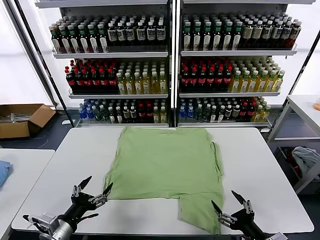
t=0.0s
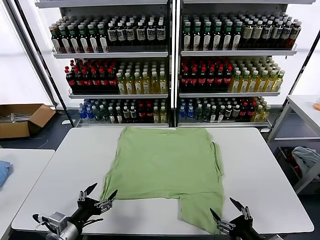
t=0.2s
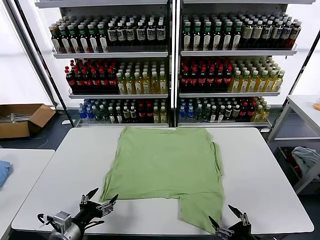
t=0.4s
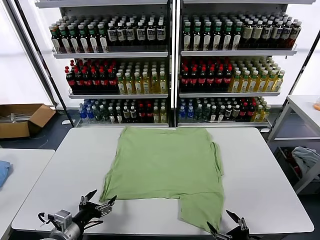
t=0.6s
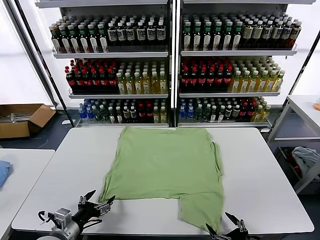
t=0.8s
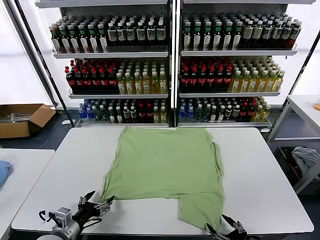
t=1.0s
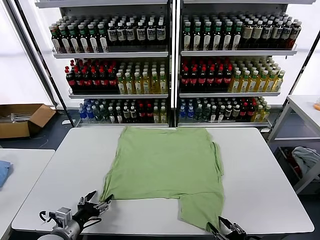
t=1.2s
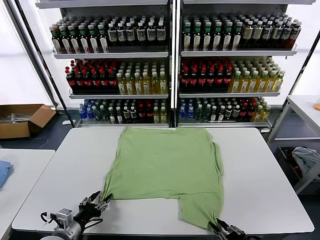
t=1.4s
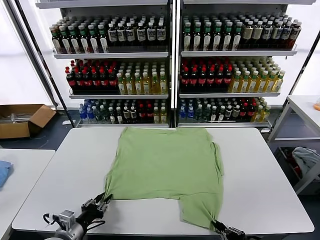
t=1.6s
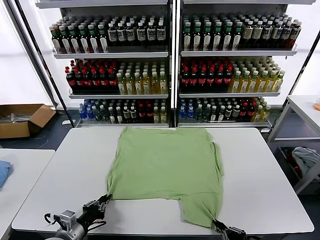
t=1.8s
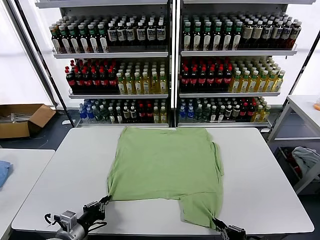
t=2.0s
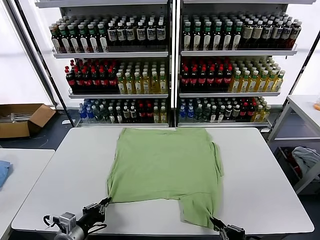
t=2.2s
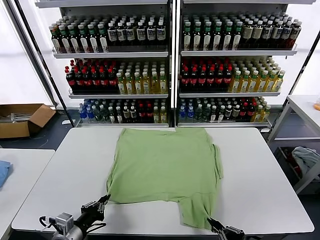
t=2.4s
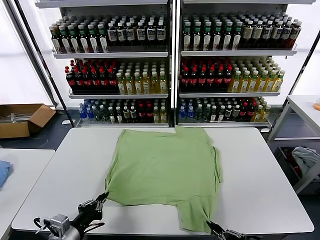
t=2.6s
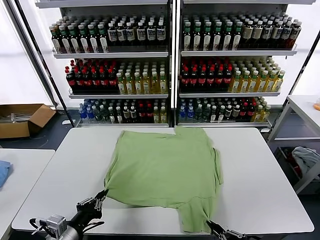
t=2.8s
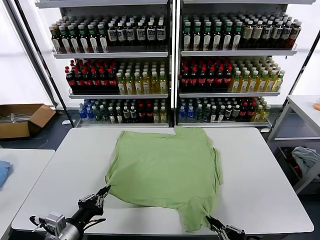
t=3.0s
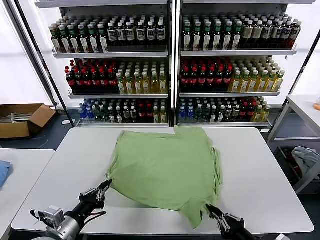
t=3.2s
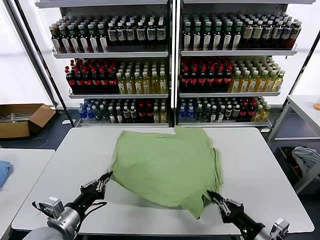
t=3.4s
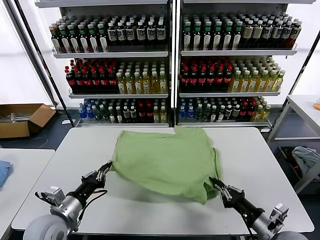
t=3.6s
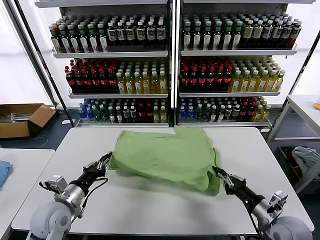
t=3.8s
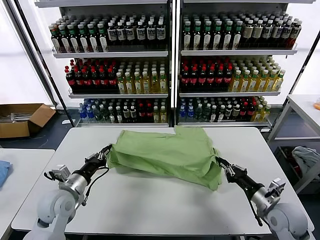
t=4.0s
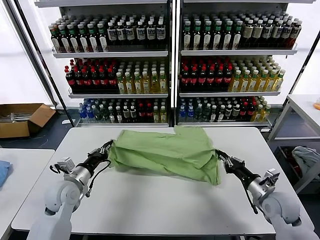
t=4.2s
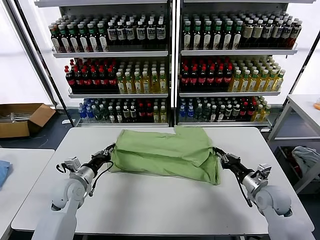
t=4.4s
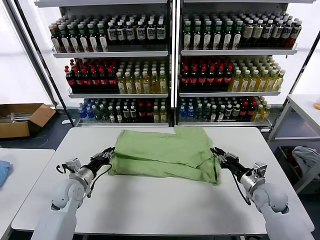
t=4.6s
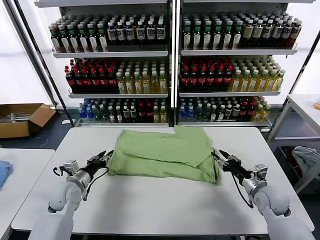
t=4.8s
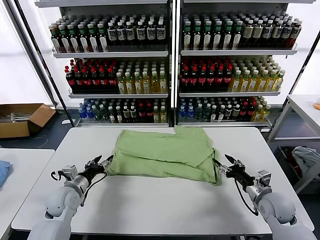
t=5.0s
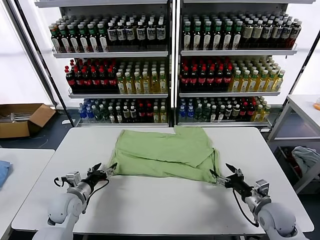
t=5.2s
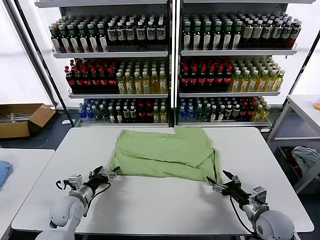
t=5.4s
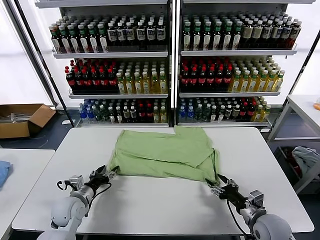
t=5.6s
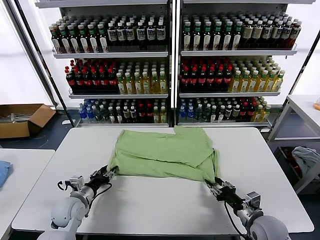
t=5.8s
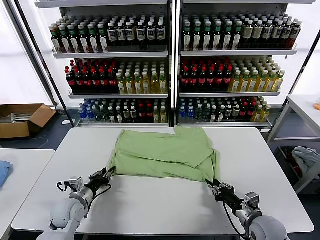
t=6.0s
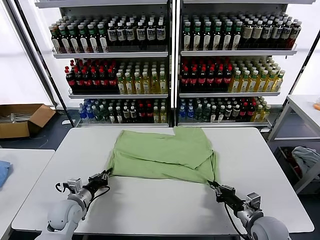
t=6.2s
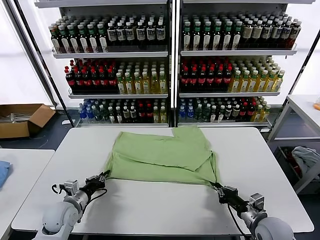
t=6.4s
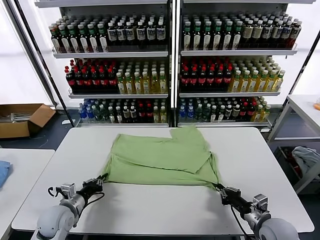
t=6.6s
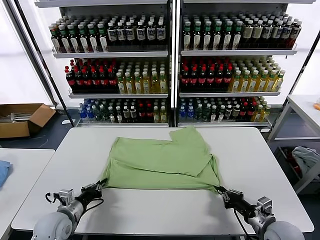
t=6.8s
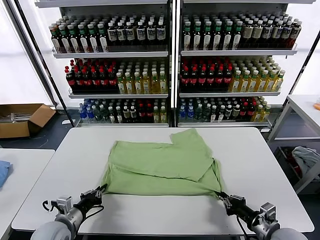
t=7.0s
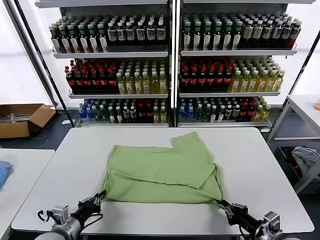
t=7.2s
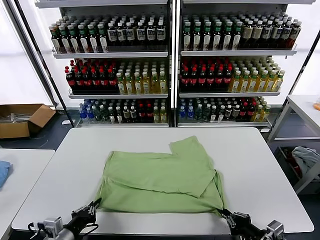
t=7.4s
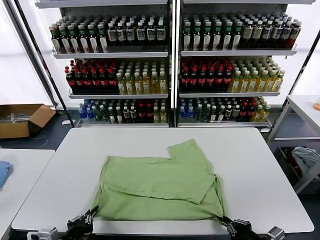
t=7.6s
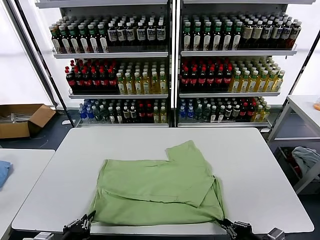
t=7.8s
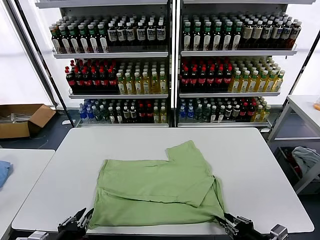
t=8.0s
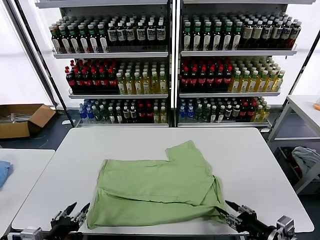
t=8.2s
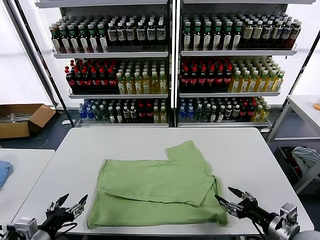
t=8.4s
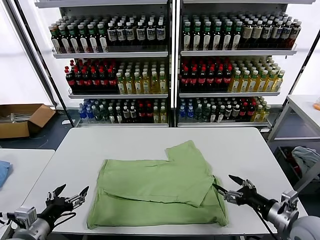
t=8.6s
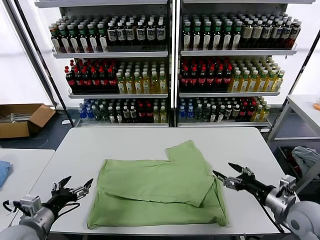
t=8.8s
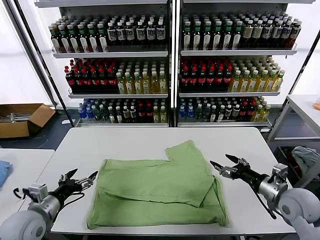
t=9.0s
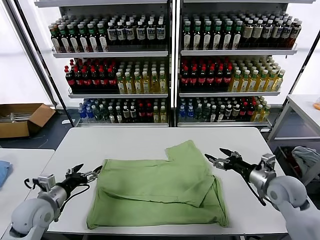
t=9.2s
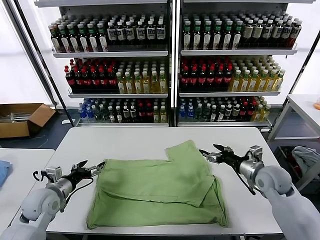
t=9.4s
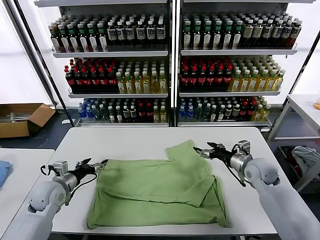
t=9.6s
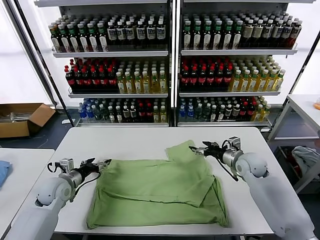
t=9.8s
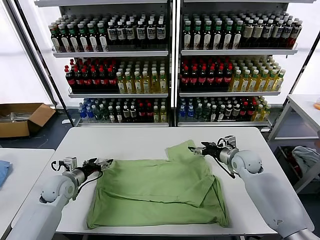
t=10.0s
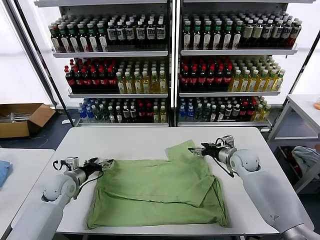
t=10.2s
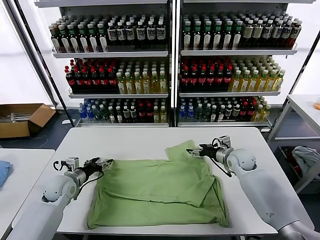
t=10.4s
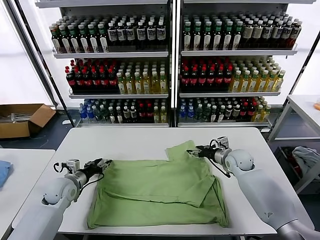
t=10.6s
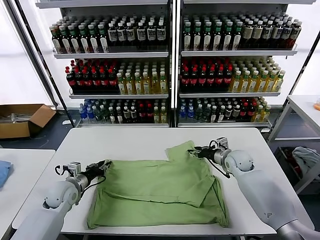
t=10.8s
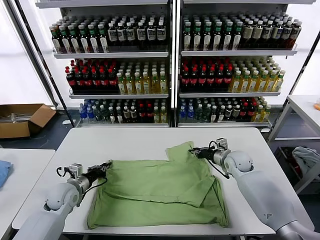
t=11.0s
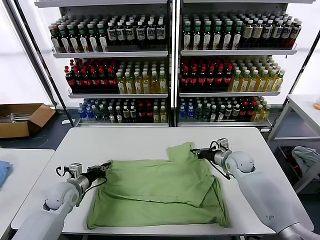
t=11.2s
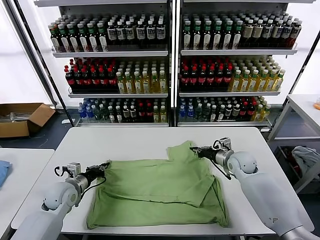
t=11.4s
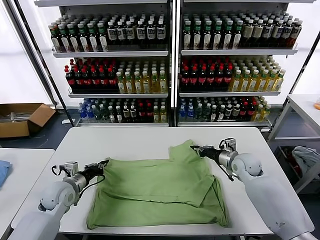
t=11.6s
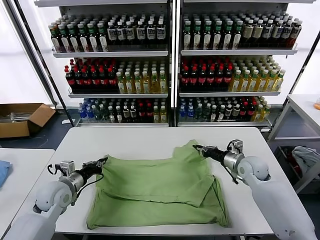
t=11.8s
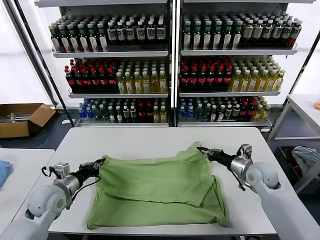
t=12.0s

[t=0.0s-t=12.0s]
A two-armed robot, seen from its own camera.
Task of the whole recording: fold and organize the clothes.
Step, t=0.0s to t=2.0s: use both grippers simultaneously to clamp the lower edge of the clothing fabric.
Step, t=2.2s to t=4.6s: use both grippers to drag the lower edge of the fabric forward and fold it over the upper edge.
Step, t=4.8s to t=8.2s: Drag the clothes downward with both gripper.
Step, t=8.6s to t=11.0s: use both grippers simultaneously to clamp the upper edge of the clothing fabric.
t=1.6s to t=3.0s: The left gripper travels upward by roughly 10 cm.
t=3.0s to t=4.4s: Both grippers move forward, roughly 20 cm.
t=4.4s to t=6.0s: The left gripper shifts about 5 cm downward, and opens and closes again. Meanwhile the right gripper is displaced backward by approximately 10 cm, and opens and closes again.
t=6.0s to t=7.6s: The right gripper moves backward and upward, about 15 cm. The left gripper shifts roughly 20 cm backward.
t=7.6s to t=9.0s: The right gripper goes approximately 15 cm forward, and opens its fingers. The left gripper travels forward and to the left by roughly 15 cm, and opens up.
t=9.0s to t=10.4s: The right gripper heads forward, covering approximately 20 cm; the left gripper goes approximately 15 cm forward and downward.
t=10.4s to t=12.0s: The left gripper moves backward and upward, roughly 10 cm, and closes. The right gripper travels backward by roughly 10 cm, and closes its fingers.

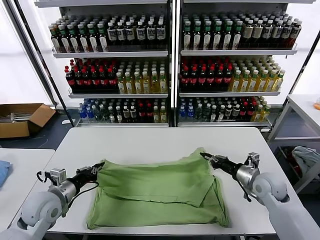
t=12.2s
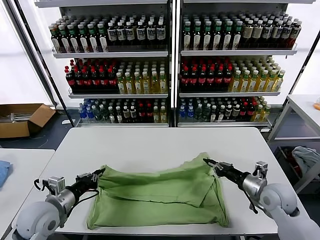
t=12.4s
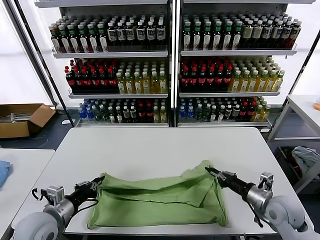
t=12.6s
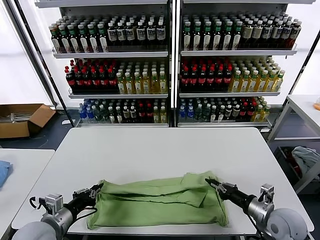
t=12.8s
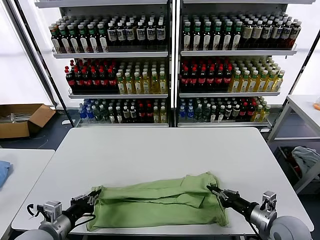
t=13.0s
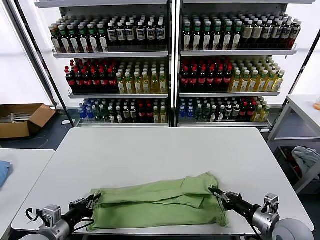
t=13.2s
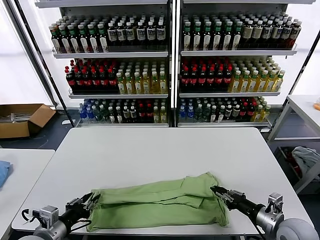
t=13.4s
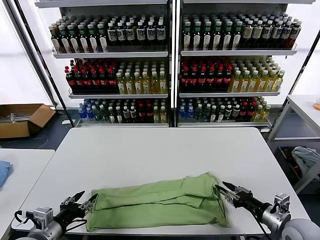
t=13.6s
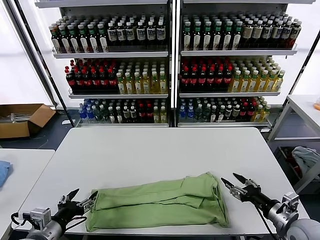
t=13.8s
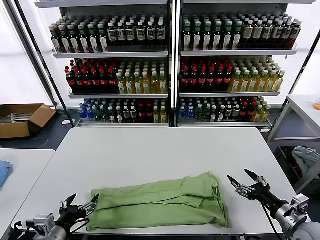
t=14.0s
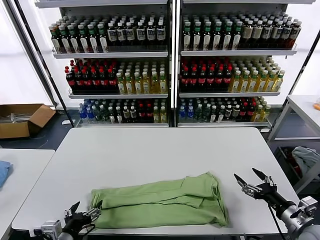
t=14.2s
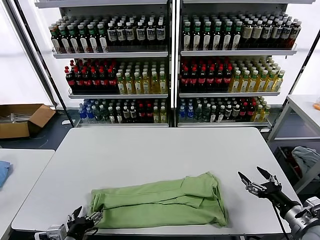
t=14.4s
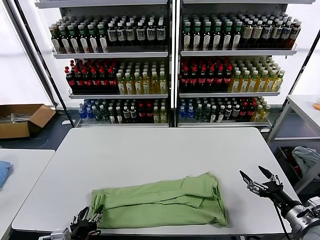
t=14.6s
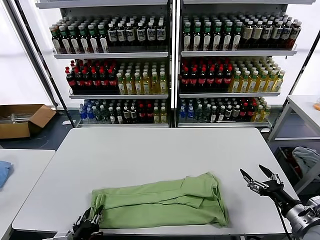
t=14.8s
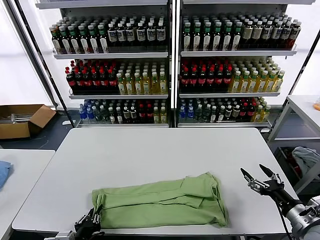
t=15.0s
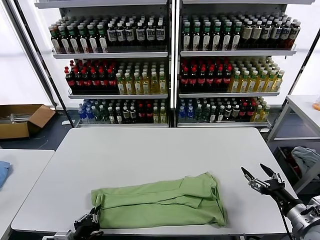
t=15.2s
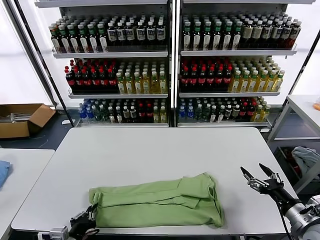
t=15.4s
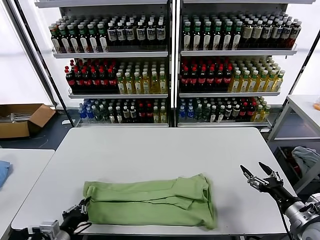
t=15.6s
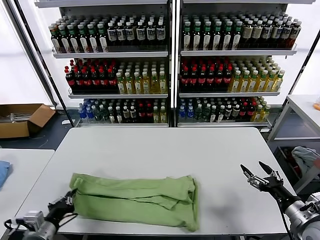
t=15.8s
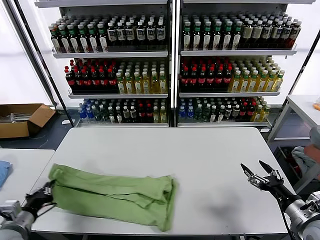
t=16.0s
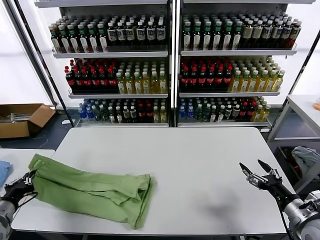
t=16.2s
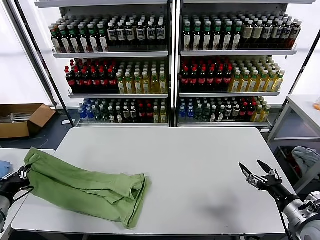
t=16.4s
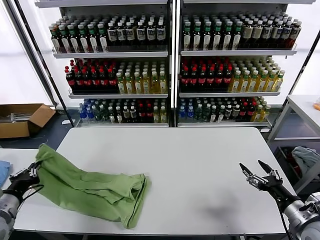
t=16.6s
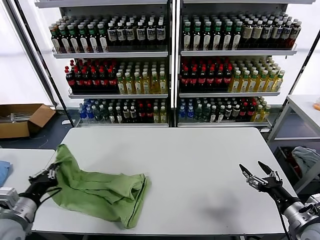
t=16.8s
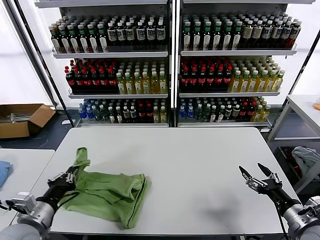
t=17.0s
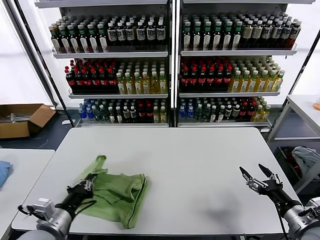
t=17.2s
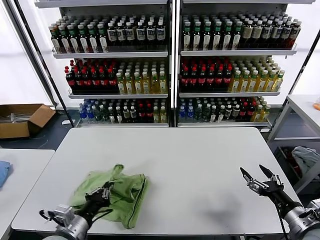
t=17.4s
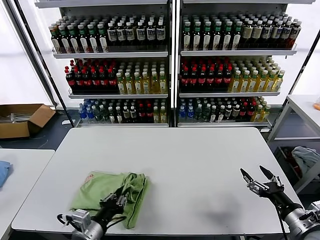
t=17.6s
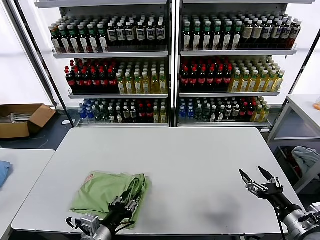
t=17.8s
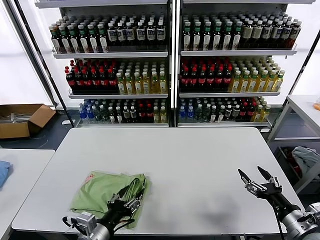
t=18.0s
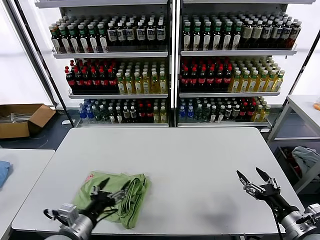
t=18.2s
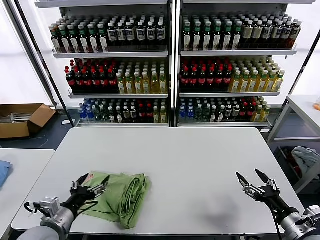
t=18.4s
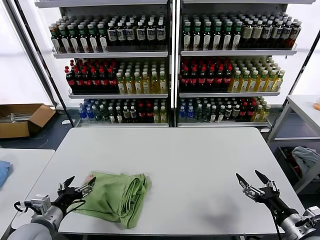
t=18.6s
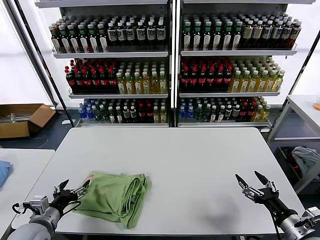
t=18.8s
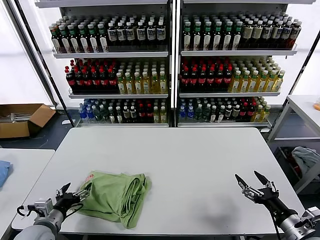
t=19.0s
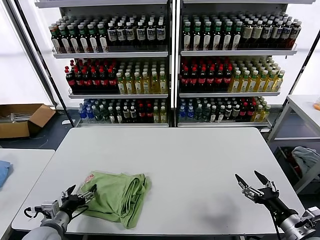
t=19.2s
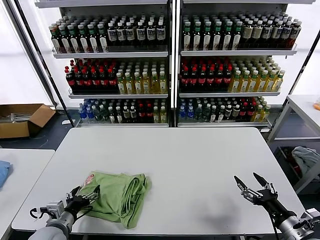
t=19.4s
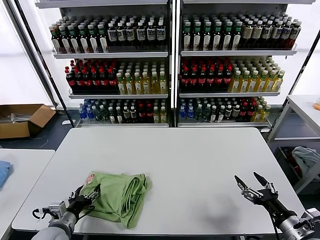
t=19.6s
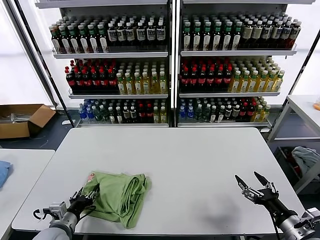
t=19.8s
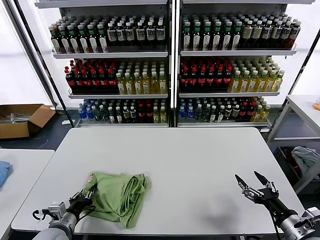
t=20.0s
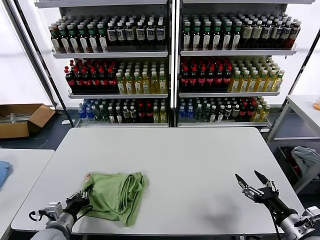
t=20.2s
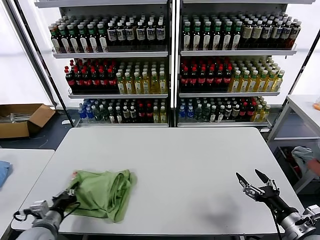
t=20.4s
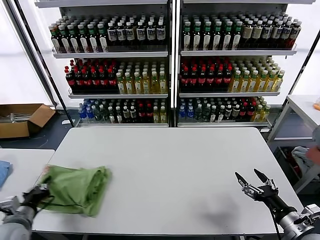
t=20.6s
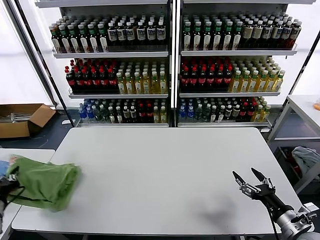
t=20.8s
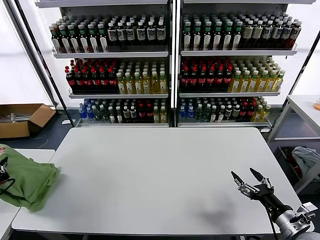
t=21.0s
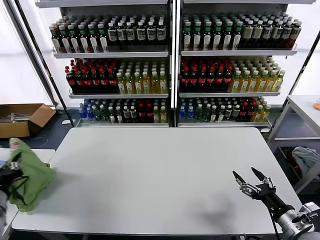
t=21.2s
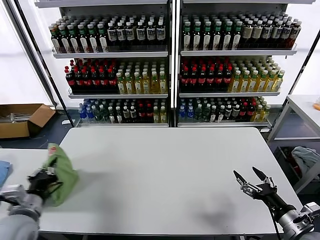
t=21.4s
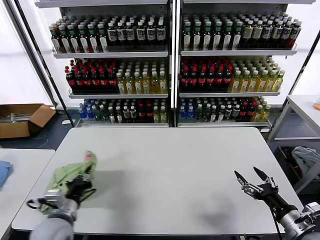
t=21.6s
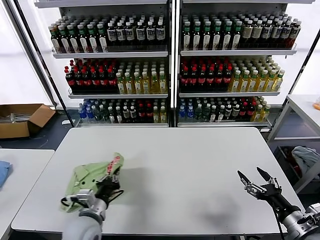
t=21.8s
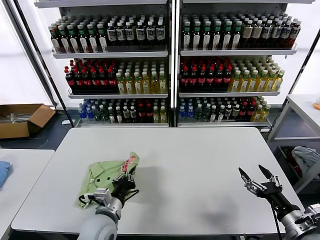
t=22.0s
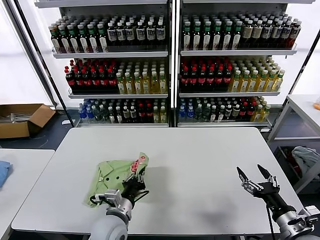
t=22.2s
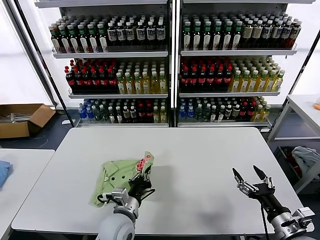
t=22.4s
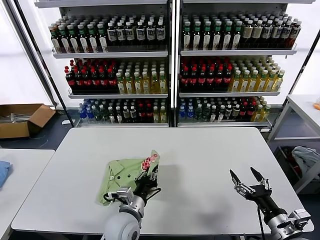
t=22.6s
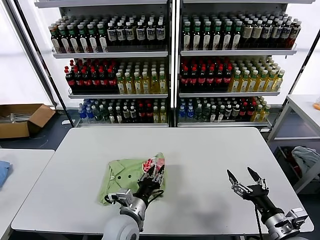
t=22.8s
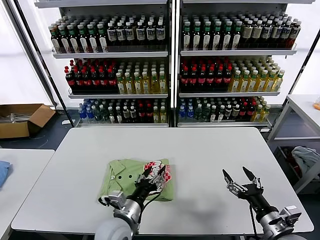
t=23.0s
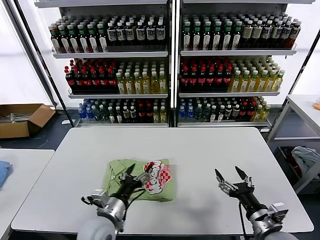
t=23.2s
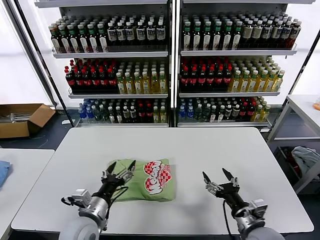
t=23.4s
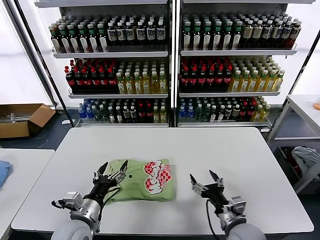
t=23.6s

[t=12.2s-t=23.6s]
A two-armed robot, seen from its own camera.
Task of the whole recording: fold and organize the clothes.
Step, t=12.2s to t=13.4s: use both grippers to drag the upper edge of the fabric backward and fold it over the lower edge.
Step, t=13.6s to t=15.0s: use the left gripper to clamp the left edge of the fabric.
Step, t=15.4s to t=18.0s: use the left gripper to drag the left edge of the fabric to the left and folds it over the right edge.
Step, t=18.2s to t=23.0s: Flip the folded clothes over with left gripper.
t=12.2s to t=13.6s: Both grippers move backward, roughly 15 cm. The left gripper opens up; the right gripper opens up.
t=13.6s to t=15.0s: The left gripper goes about 10 cm downward and to the right, and opens and closes again. Meanwhile the right gripper opens up.
t=15.0s to t=16.4s: The left gripper heads to the left and upward, covering approximately 25 cm.
t=16.4s to t=17.8s: The left gripper moves to the right, roughly 25 cm, and opens up.
t=17.8s to t=19.4s: The left gripper is displaced to the left and forward by approximately 15 cm, and opens up.
t=19.4s to t=20.8s: The left gripper travels to the left and upward by roughly 15 cm, and closes.
t=20.8s to t=22.2s: The left gripper moves to the right, some 30 cm.
t=22.2s to t=23.6s: The right gripper goes roughly 15 cm to the left. The left gripper travels to the left by approximately 10 cm, and opens its fingers.
